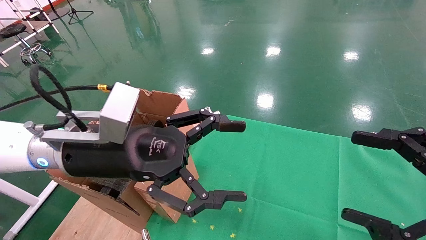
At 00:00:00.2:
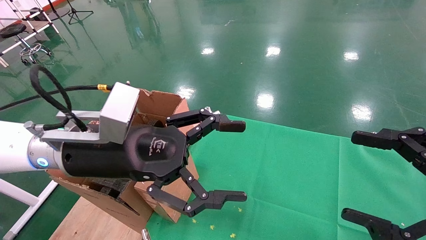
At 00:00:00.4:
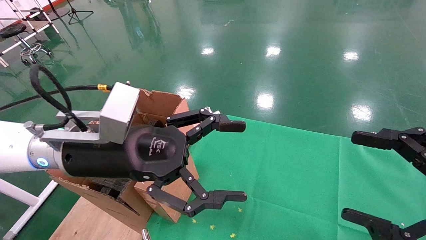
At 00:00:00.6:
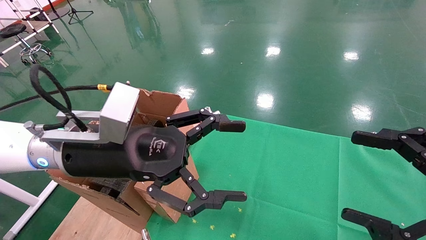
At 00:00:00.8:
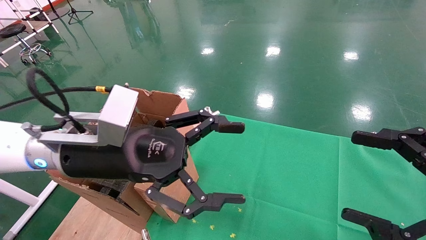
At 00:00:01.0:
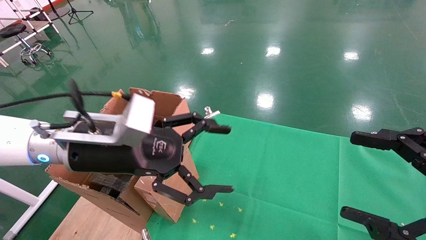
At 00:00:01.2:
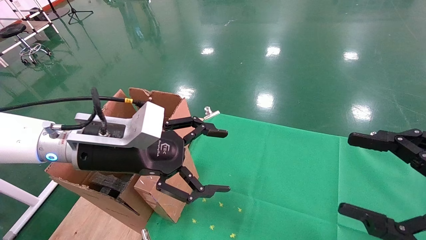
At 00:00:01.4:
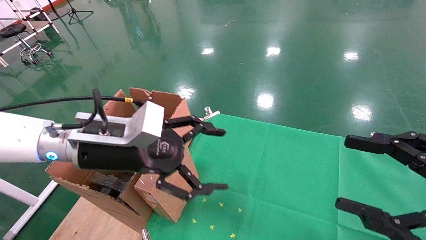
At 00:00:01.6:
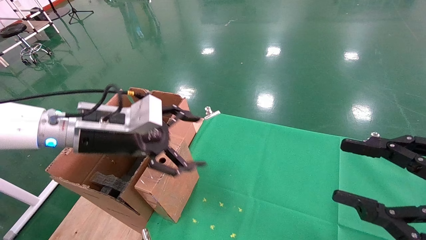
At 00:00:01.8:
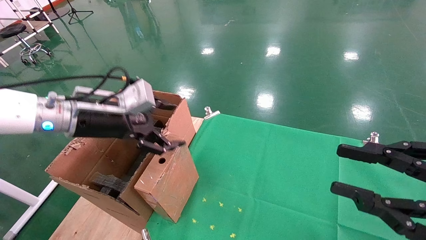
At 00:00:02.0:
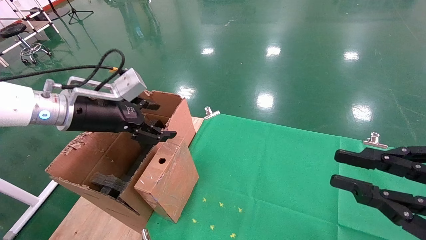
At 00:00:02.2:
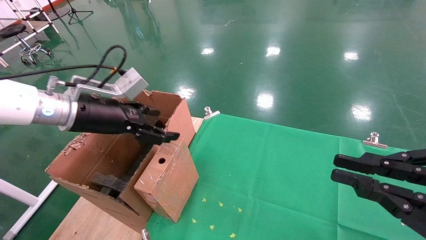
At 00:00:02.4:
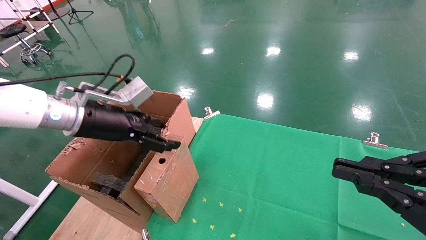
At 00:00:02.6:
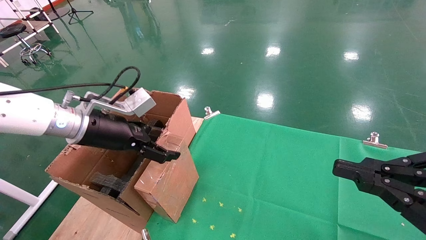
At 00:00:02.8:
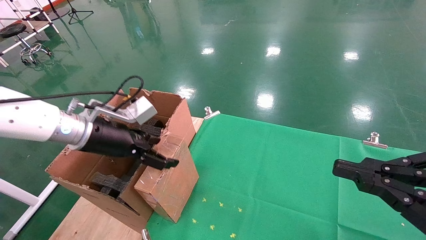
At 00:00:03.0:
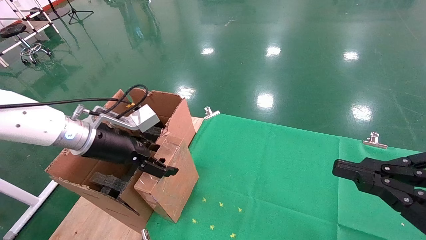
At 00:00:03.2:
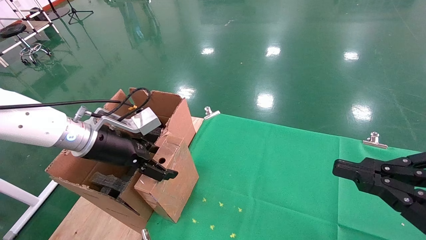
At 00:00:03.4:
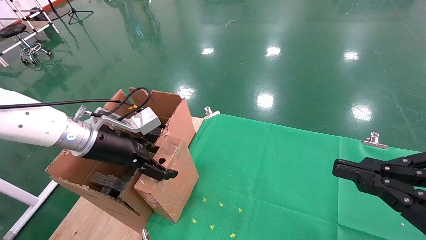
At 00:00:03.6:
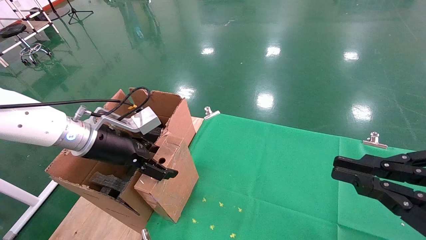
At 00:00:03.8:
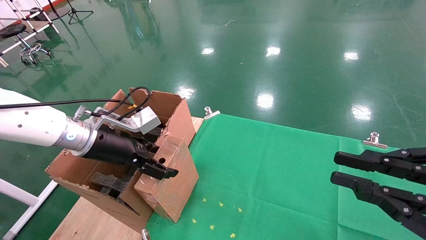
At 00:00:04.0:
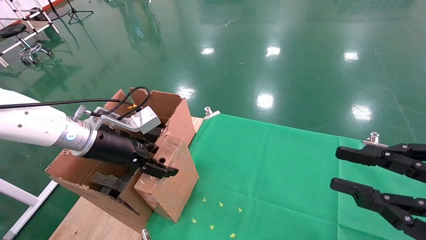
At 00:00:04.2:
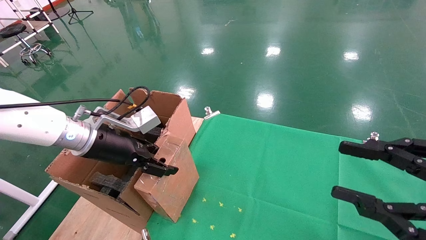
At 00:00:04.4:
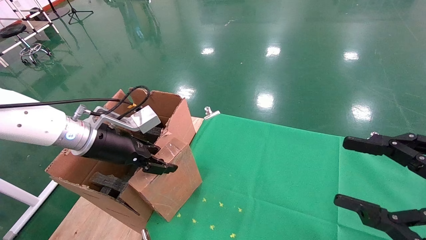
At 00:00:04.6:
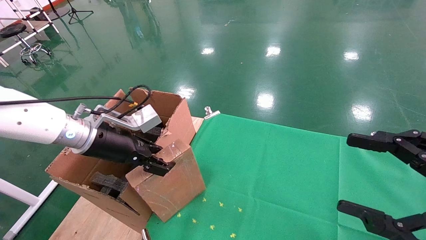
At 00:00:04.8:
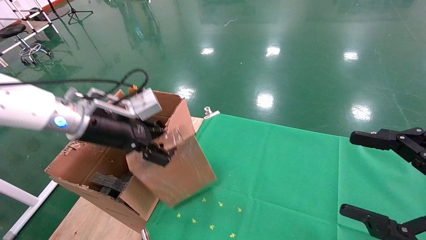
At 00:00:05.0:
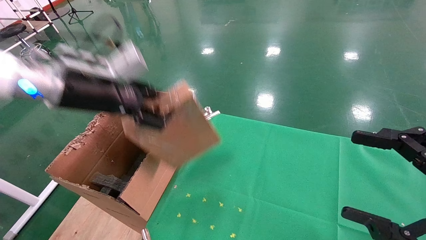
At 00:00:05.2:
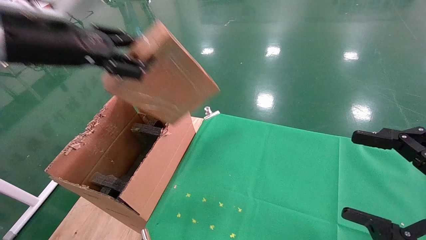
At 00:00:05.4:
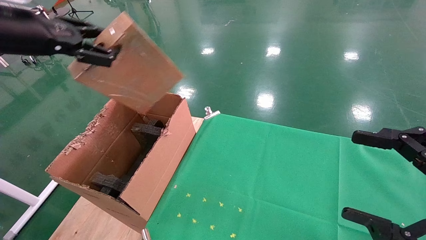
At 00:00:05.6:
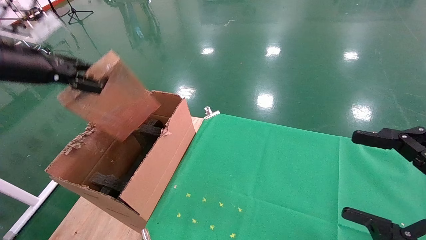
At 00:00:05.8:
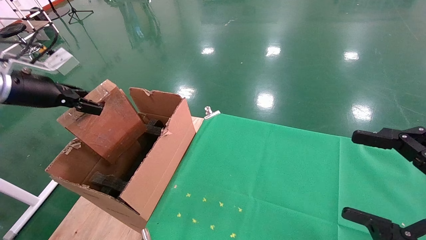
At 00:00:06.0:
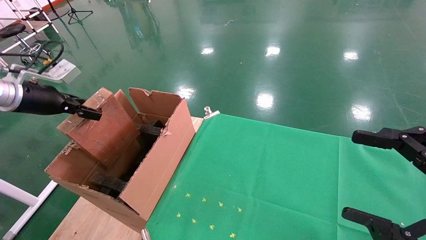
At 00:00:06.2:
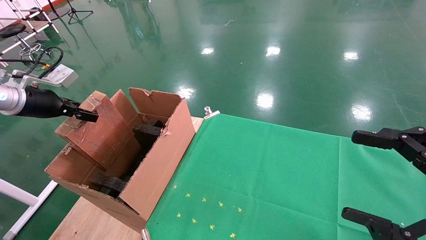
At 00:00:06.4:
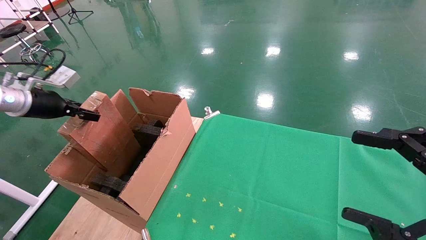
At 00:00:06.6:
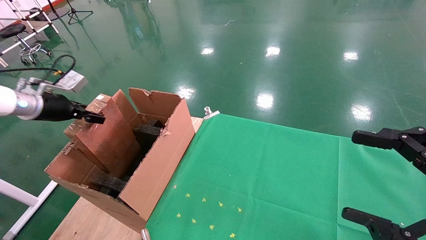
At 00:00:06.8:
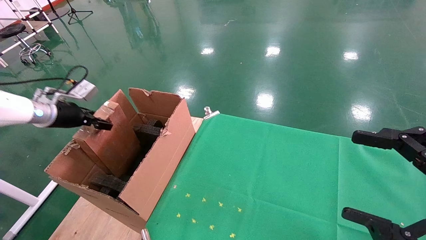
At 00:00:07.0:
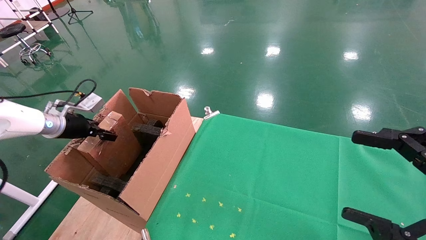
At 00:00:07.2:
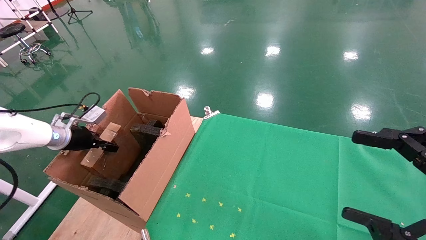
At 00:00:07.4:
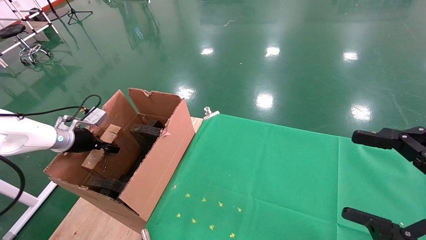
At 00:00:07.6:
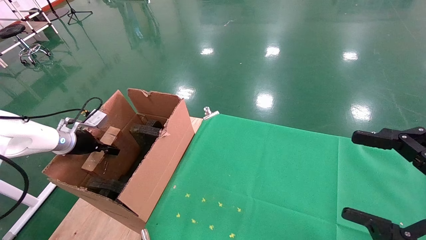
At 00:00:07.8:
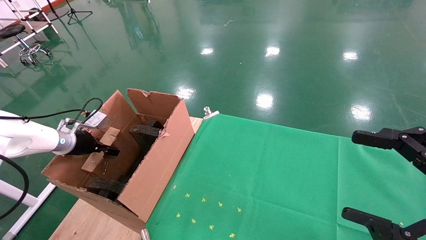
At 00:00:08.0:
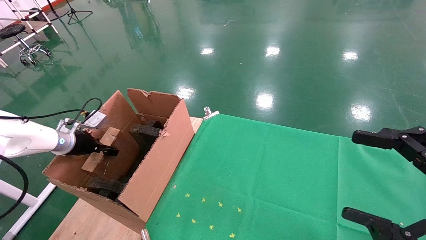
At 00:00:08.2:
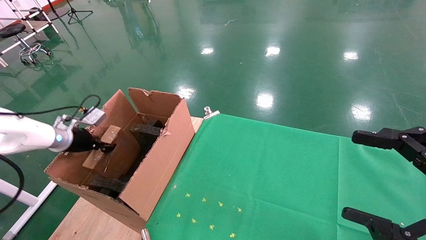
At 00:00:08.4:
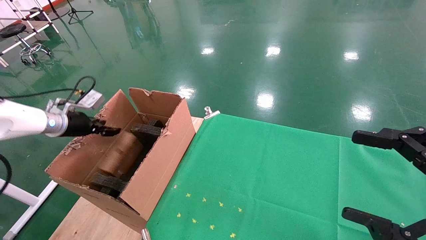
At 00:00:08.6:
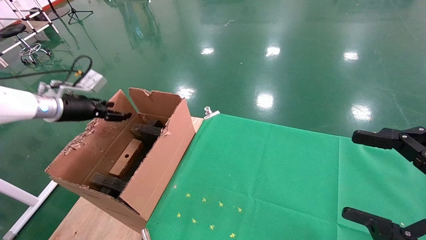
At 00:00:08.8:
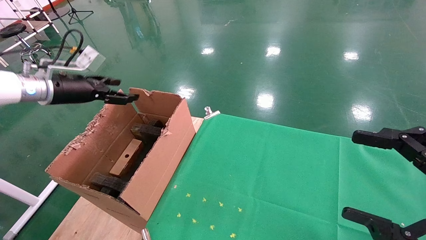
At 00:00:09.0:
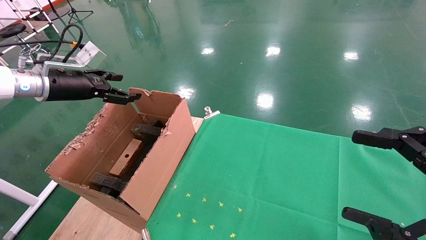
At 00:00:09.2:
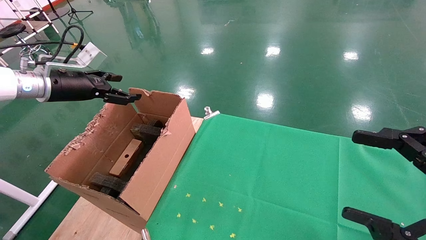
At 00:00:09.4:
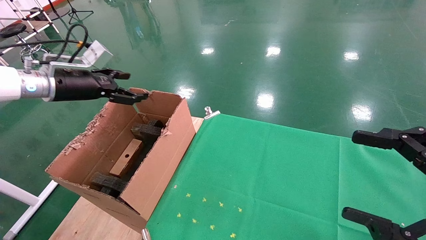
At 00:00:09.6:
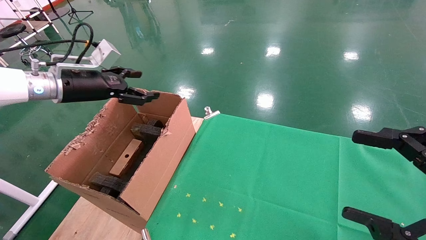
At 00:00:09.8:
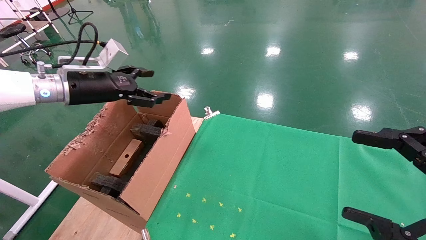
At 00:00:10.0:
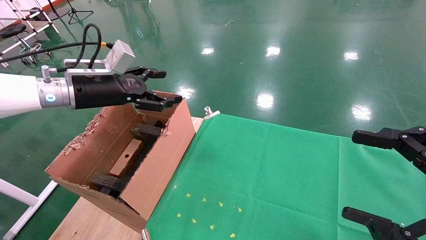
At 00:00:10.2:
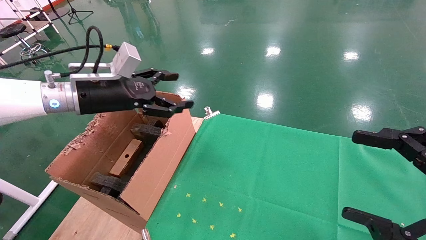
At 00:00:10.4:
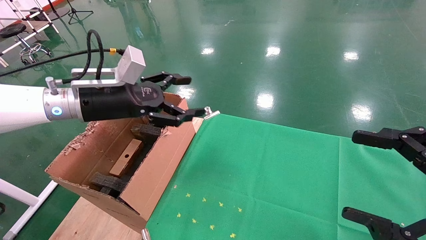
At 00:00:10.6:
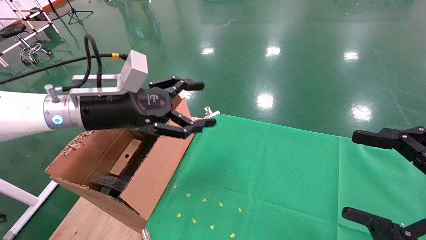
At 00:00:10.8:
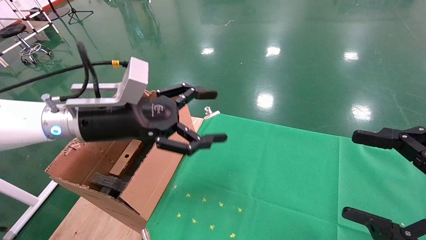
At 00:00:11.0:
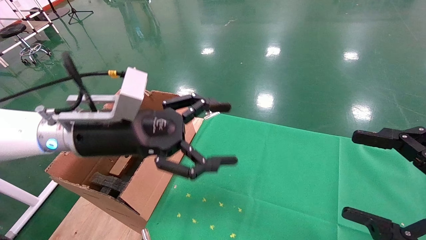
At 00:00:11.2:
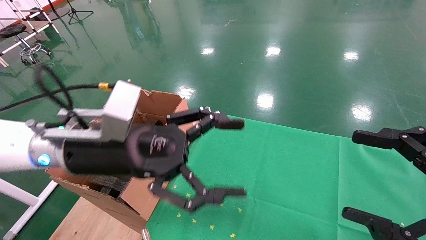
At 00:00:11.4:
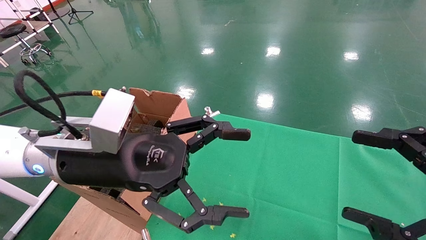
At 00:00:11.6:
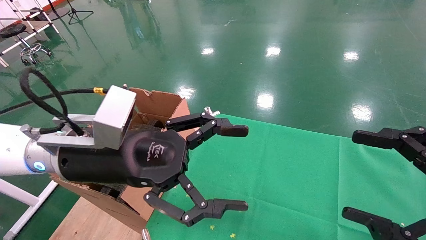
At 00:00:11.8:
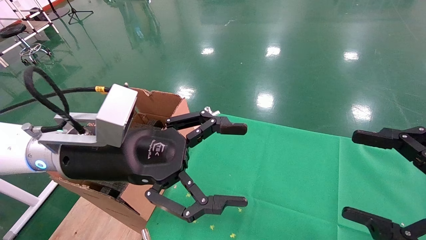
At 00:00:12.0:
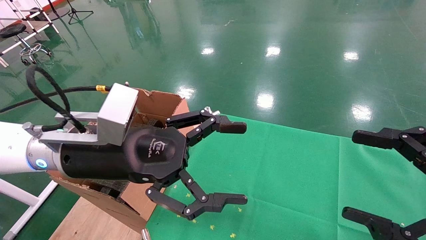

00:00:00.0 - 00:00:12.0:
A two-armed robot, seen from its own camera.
Task of the whole recording: using a robotic arm to pick up a cardboard box and palace it the carton.
Step, 00:00:01.2 - 00:00:04.6: Pick up the mouse and the power cord paper box.
Step, 00:00:04.8 - 00:00:08.8: Place the mouse and the power cord paper box into the container.
00:00:00.0 - 00:00:01.6: The left gripper heads to the left and forward, covering about 10 cm.
00:00:01.6 - 00:00:03.0: The right gripper closes up.
00:00:03.0 - 00:00:04.4: The right gripper opens; the left gripper closes.
00:00:04.4 - 00:00:06.0: The left gripper heads to the left, covering about 20 cm, and closes up. Meanwhile the right gripper opens.
00:00:06.0 - 00:00:07.6: The left gripper goes approximately 20 cm downward and forward.
00:00:07.6 - 00:00:09.0: The left gripper heads upward, covering approximately 15 cm, and opens up.
00:00:09.0 - 00:00:10.4: The left gripper is displaced to the right by about 15 cm.
00:00:10.4 - 00:00:12.0: The left gripper heads backward and to the right, covering some 15 cm.

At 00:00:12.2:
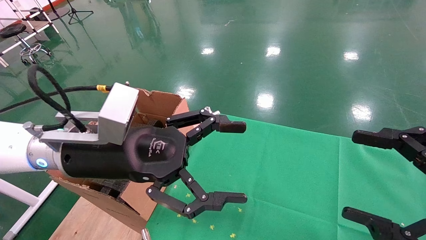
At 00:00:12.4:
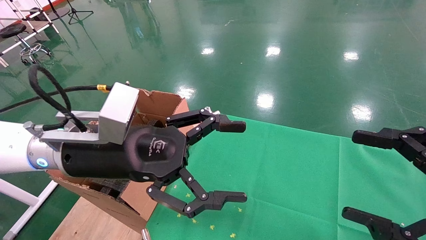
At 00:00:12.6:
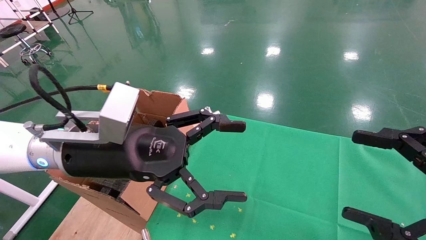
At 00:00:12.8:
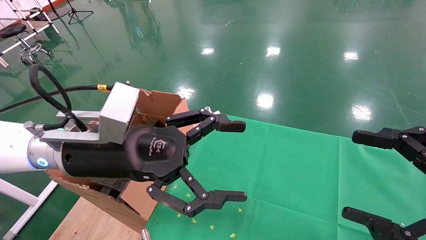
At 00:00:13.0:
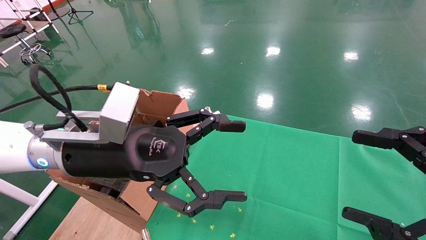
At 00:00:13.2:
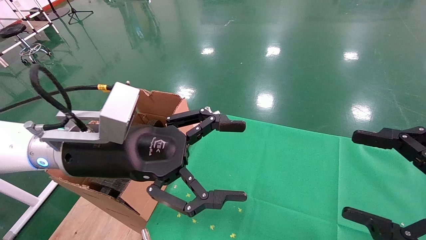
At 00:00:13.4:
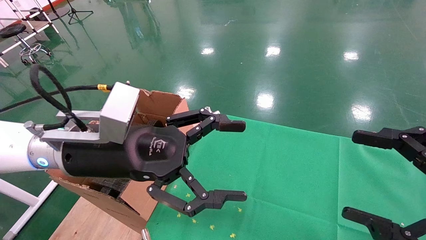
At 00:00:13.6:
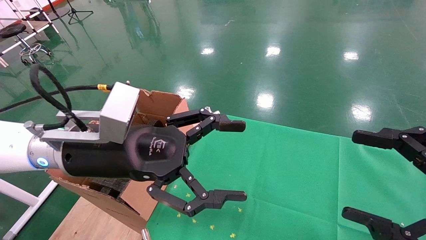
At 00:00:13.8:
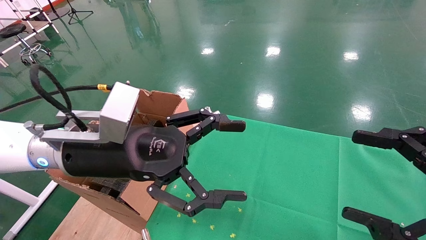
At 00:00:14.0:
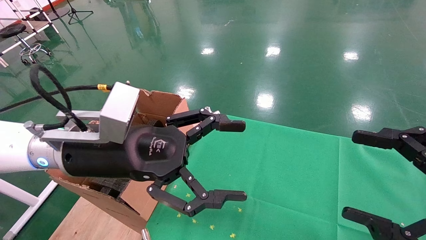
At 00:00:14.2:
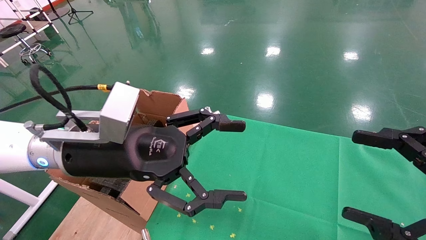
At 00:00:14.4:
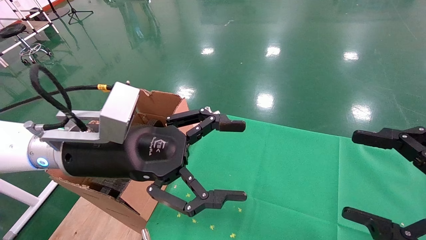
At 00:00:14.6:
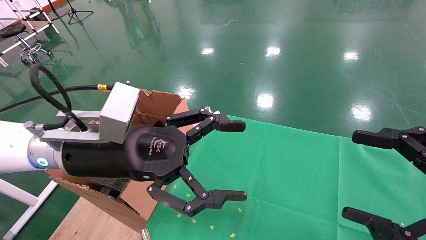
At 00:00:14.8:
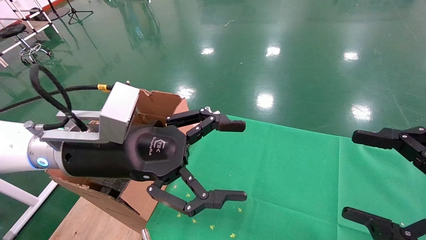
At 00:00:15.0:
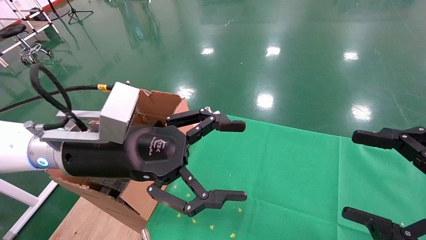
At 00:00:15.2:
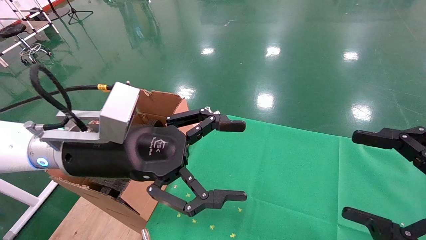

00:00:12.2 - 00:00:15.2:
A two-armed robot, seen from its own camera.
Task of the whole recording: using a robotic arm to pick up a cardboard box and palace it the carton.
00:00:12.2 - 00:00:15.2: The two grippers keep their place.
